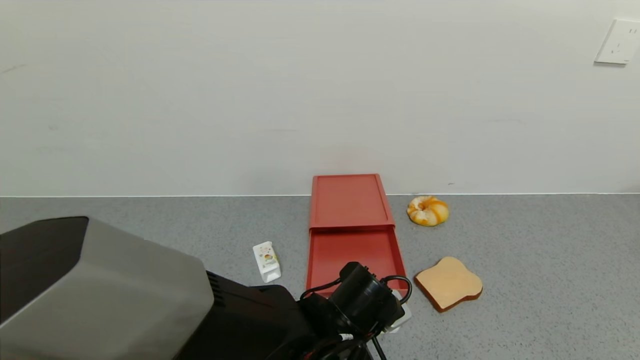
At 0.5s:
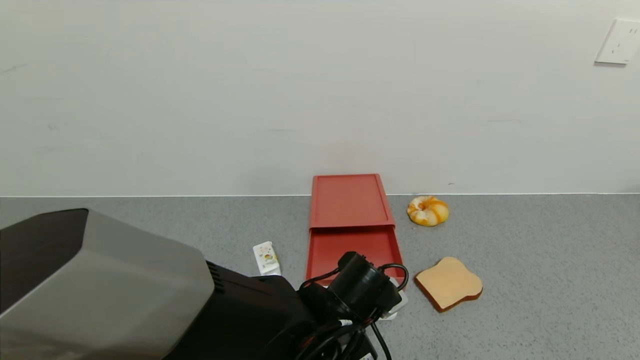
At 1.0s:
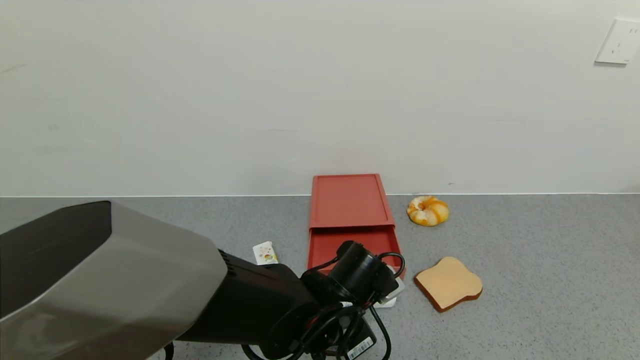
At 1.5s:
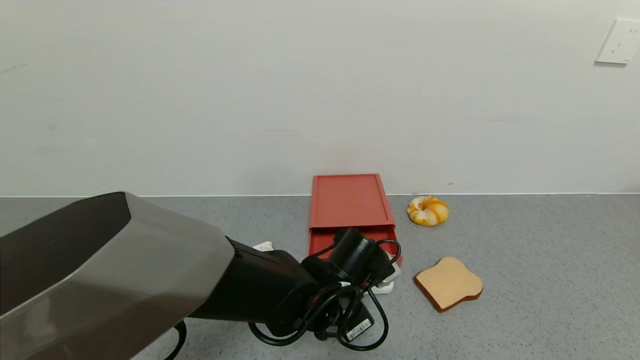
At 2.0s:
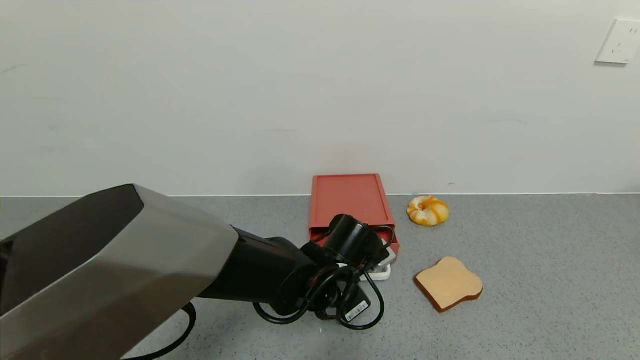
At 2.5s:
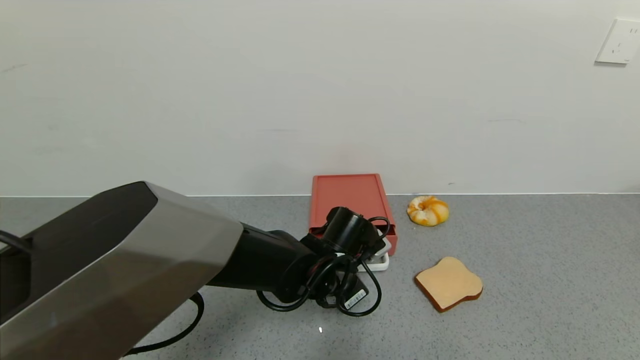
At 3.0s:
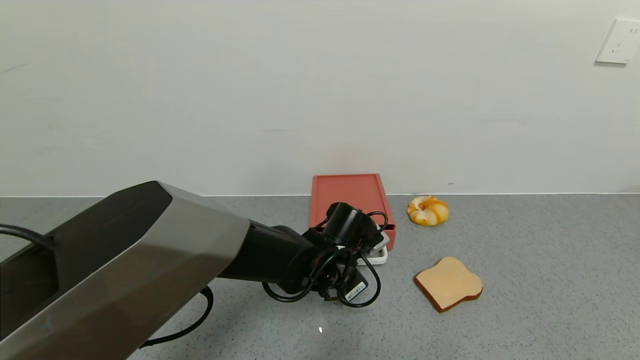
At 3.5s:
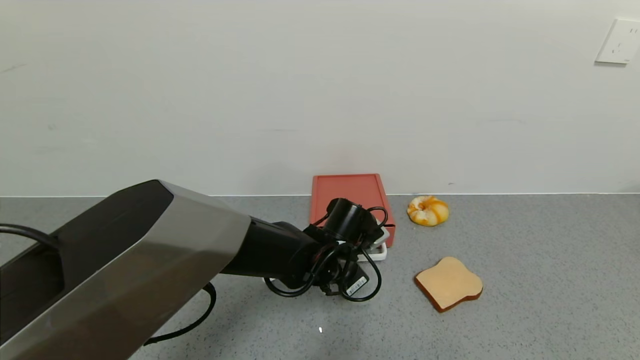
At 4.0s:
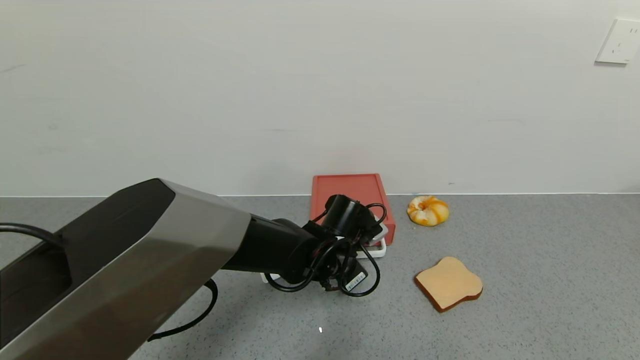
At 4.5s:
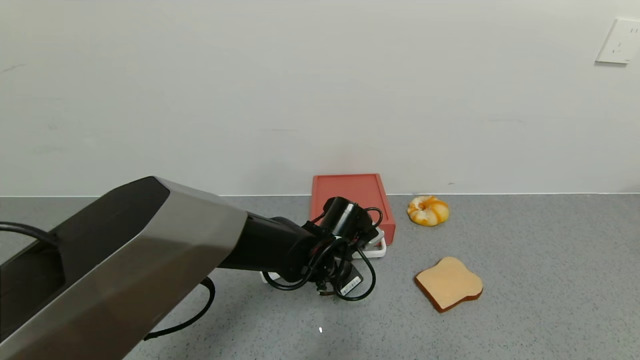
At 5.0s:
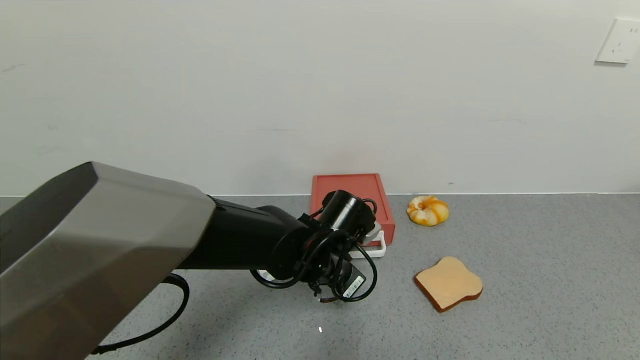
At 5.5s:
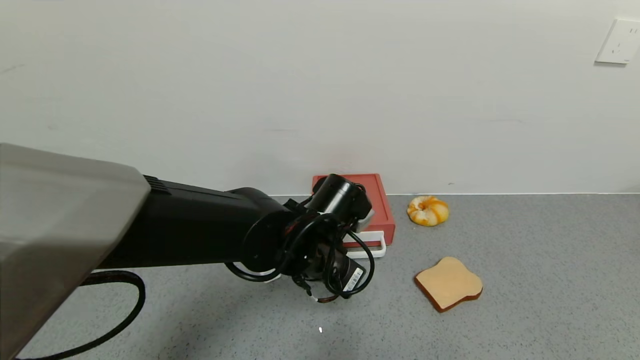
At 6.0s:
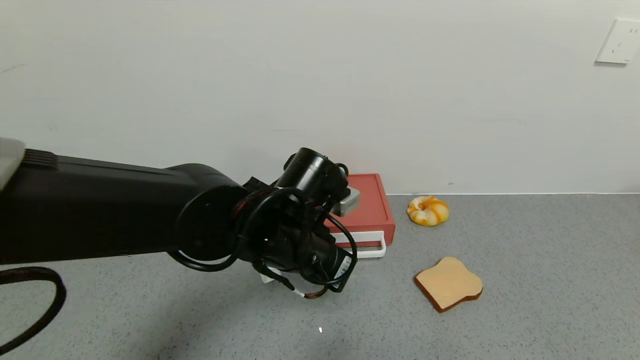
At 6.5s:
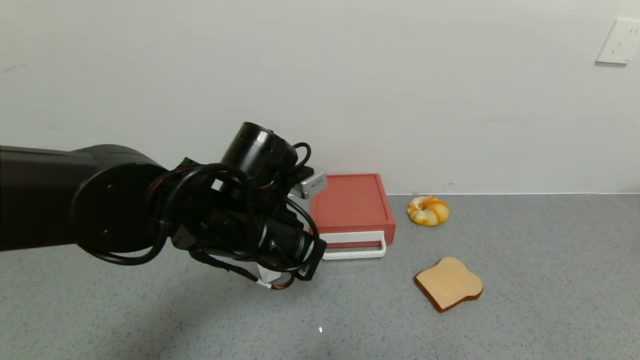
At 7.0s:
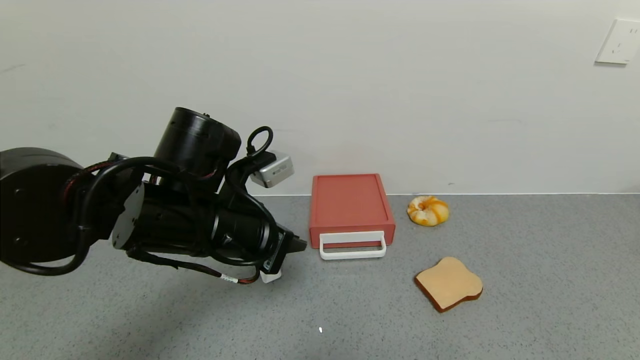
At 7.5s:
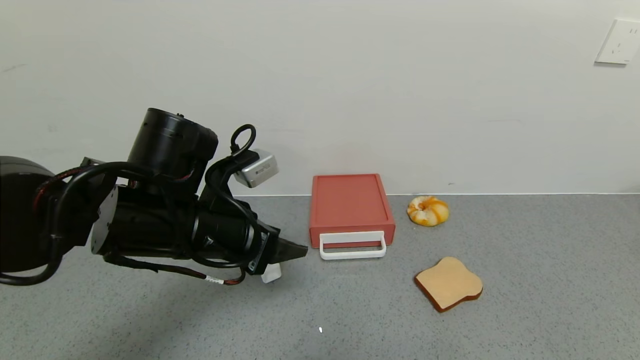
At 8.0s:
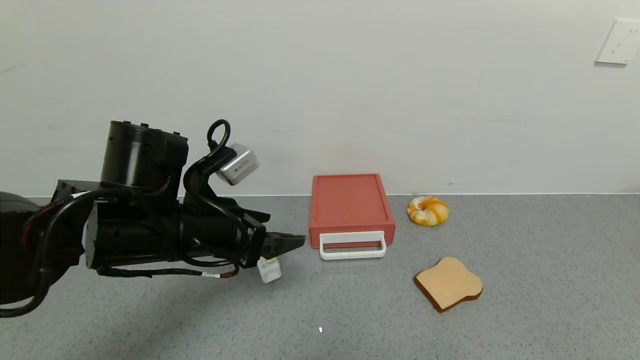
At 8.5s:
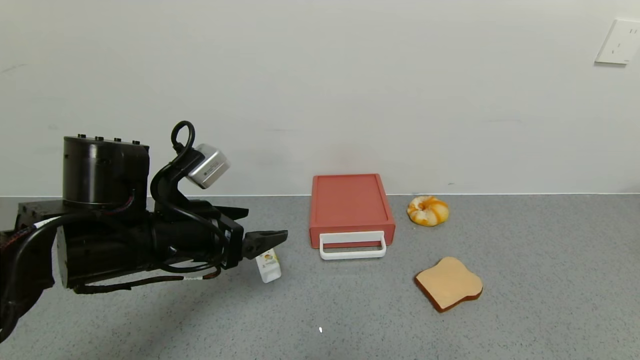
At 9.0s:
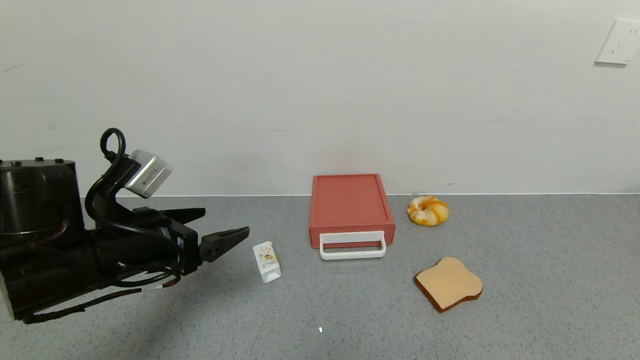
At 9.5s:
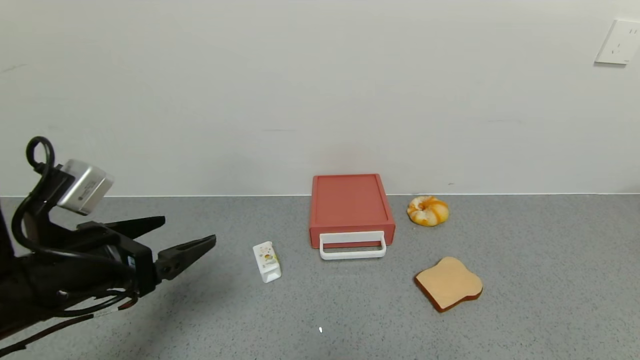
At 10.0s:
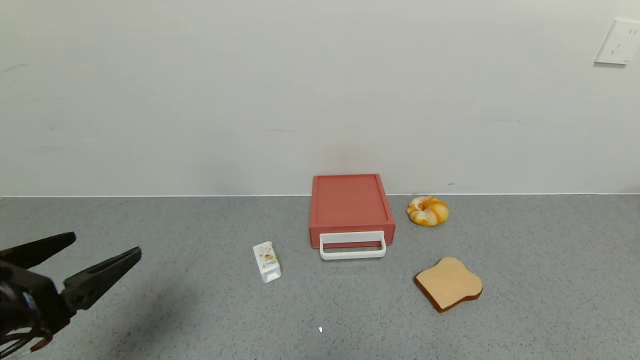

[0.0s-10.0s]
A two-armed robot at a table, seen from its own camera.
Task of the whole recording: use the gripper to open the drawer and close the red drawer.
Step, 0.0s to 5.0s: Close the red drawer with the left gripper.
0.0s to 2.0s: The left gripper is displaced forward by about 5 cm.
2.0s to 4.0s: The grippers stay close to where they were, moving slightly.
4.0s to 6.0s: The left gripper travels upward and backward by some 10 cm.
6.0s to 8.0s: The left gripper moves to the left, approximately 10 cm, and opens.
8.0s to 10.0s: The left gripper heads backward and to the left, covering some 20 cm.

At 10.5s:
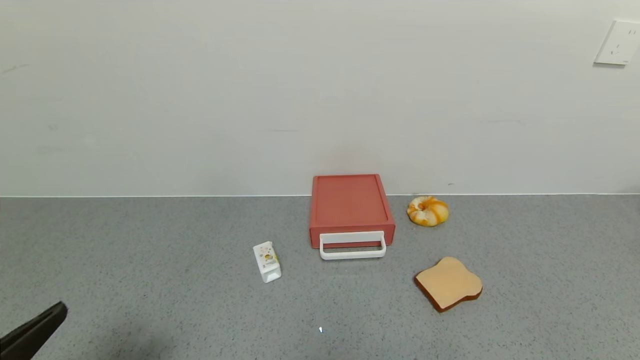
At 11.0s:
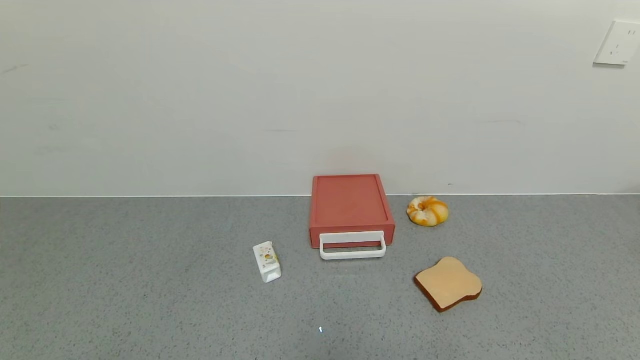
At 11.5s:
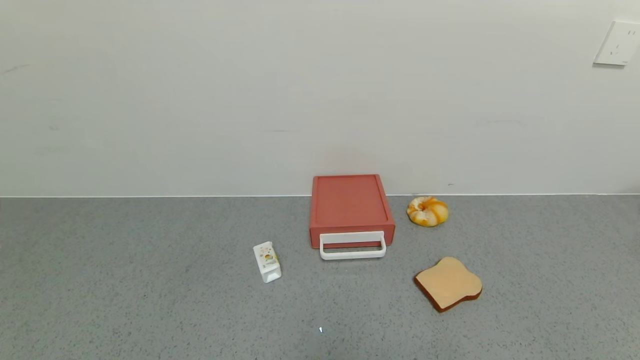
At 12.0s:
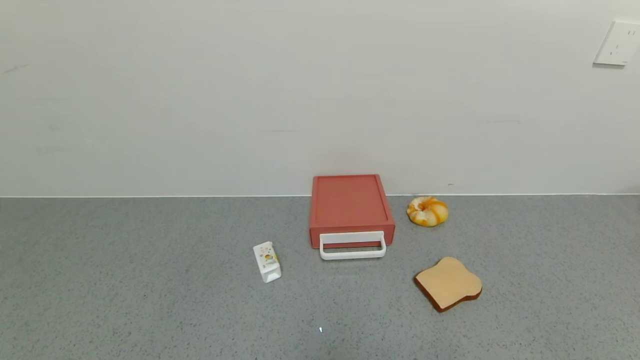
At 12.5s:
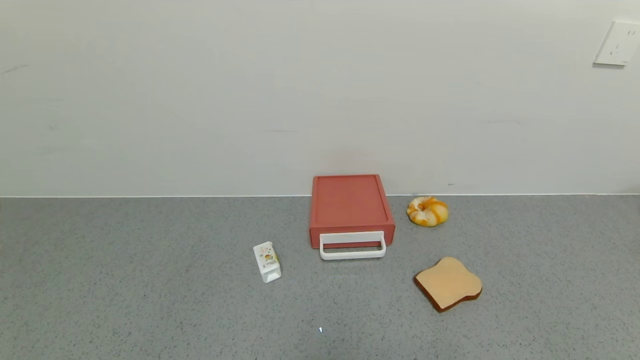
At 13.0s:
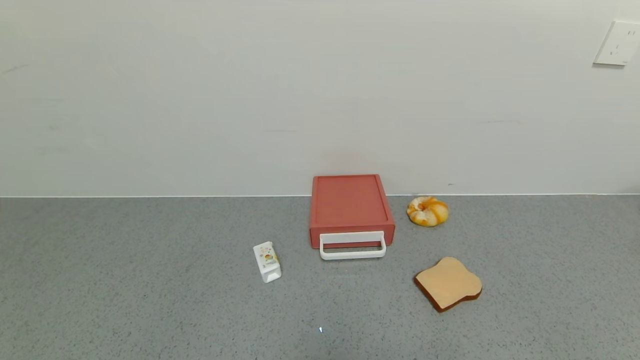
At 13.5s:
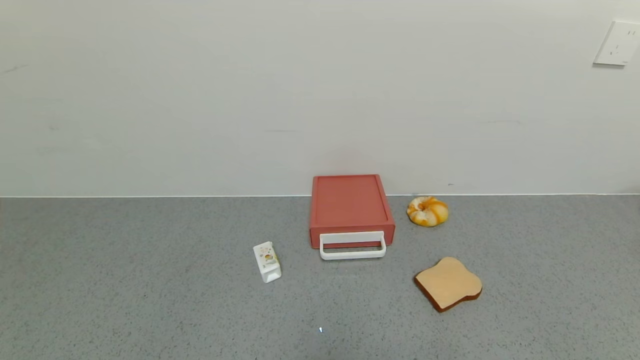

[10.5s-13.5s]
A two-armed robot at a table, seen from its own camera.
Task of the whole recording: use the gripper to open the drawer and close the red drawer.
10.5s to 12.0s: The left gripper goes approximately 15 cm downward and backward.

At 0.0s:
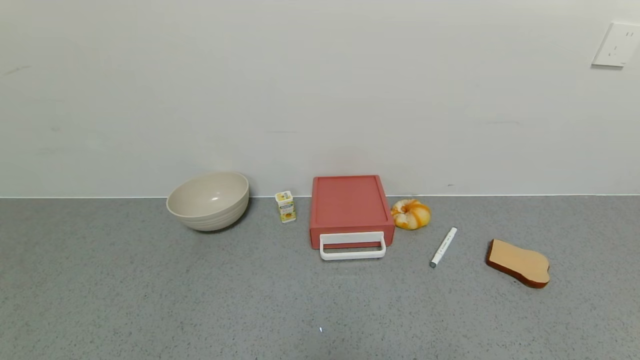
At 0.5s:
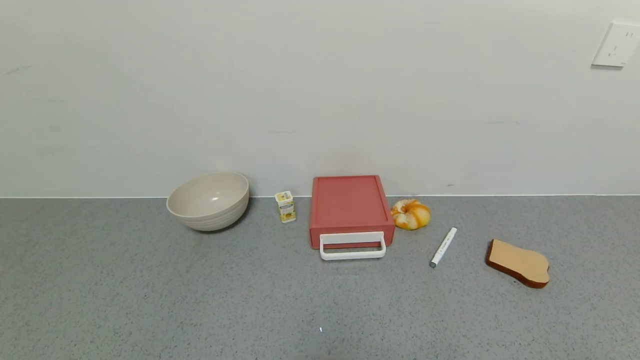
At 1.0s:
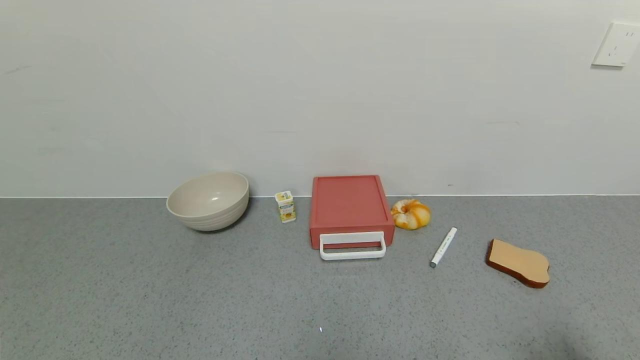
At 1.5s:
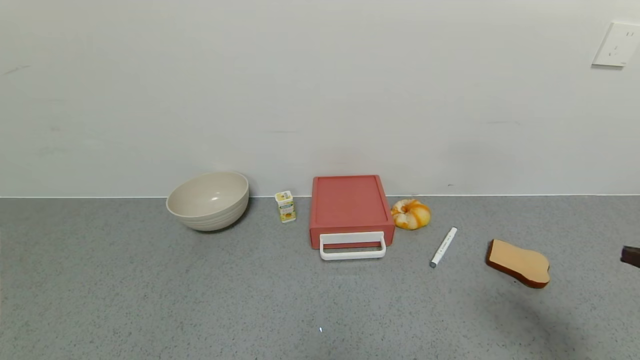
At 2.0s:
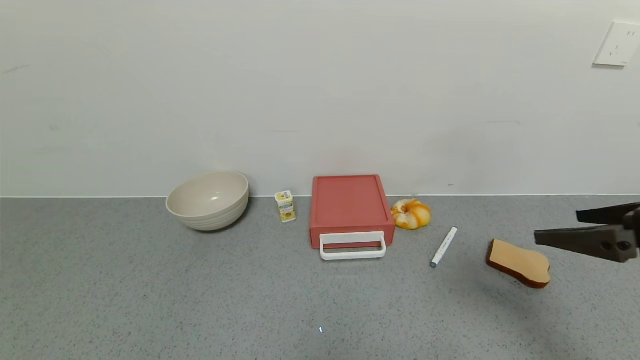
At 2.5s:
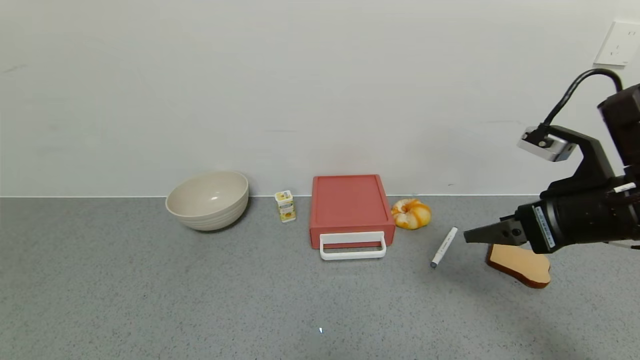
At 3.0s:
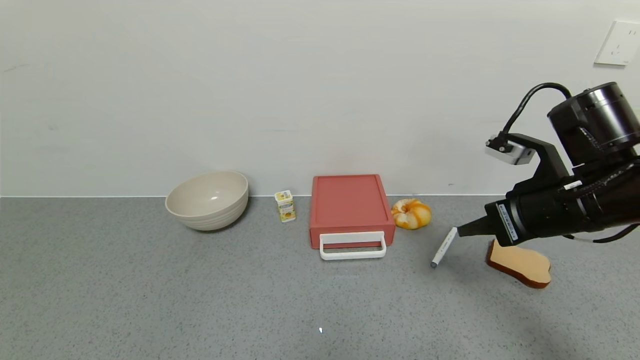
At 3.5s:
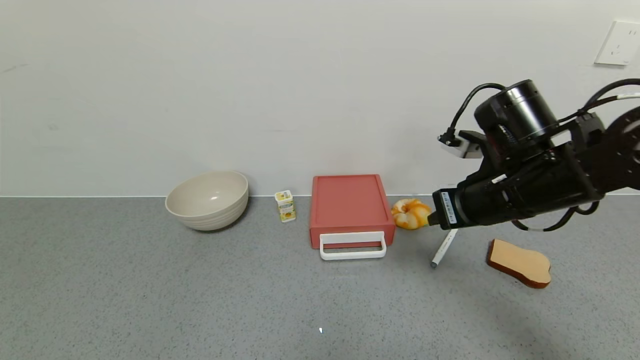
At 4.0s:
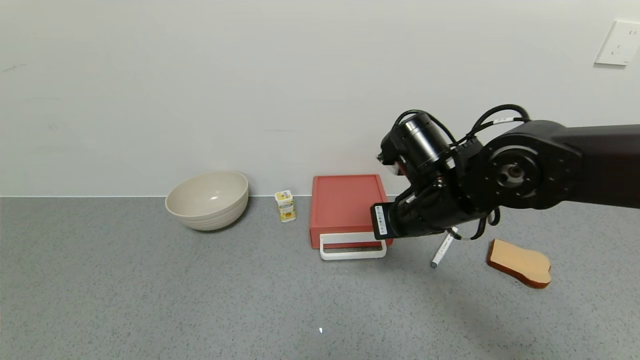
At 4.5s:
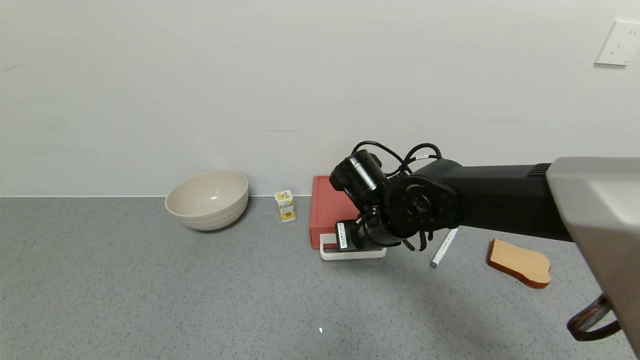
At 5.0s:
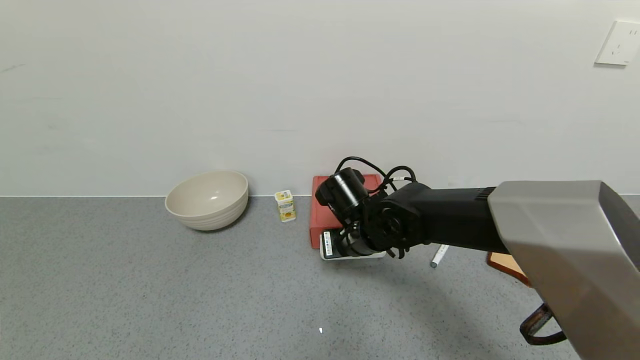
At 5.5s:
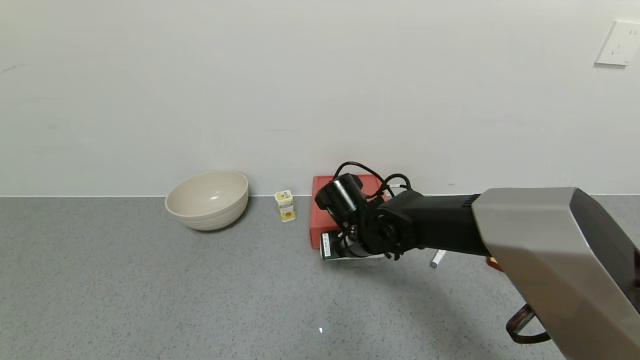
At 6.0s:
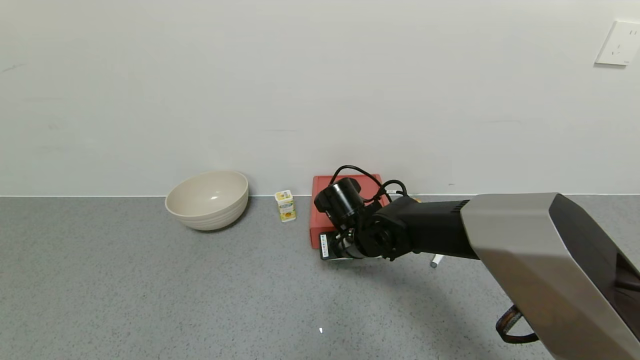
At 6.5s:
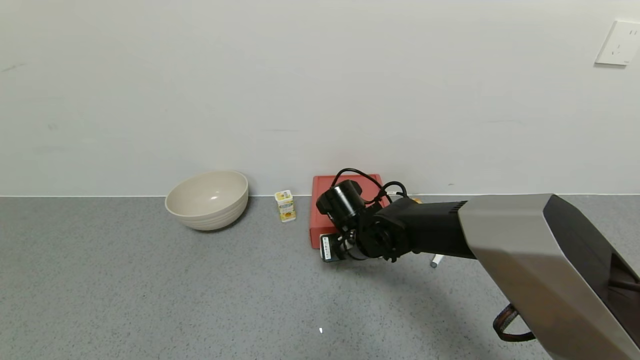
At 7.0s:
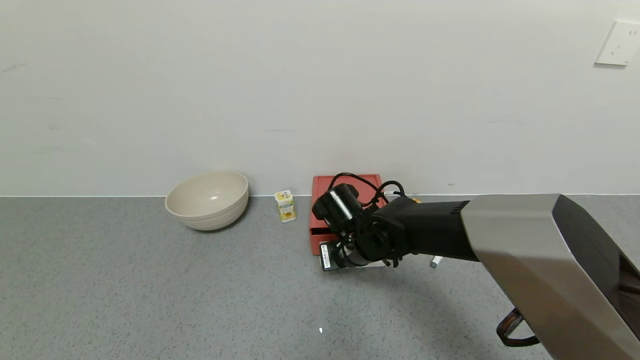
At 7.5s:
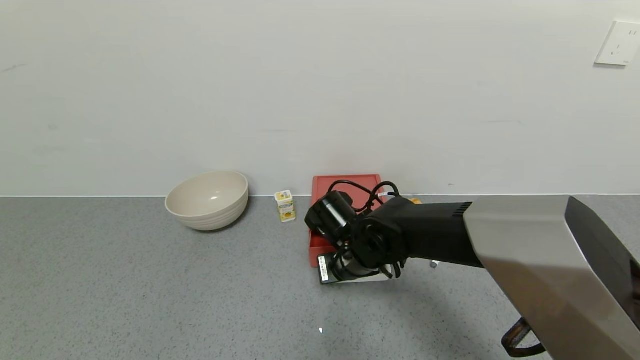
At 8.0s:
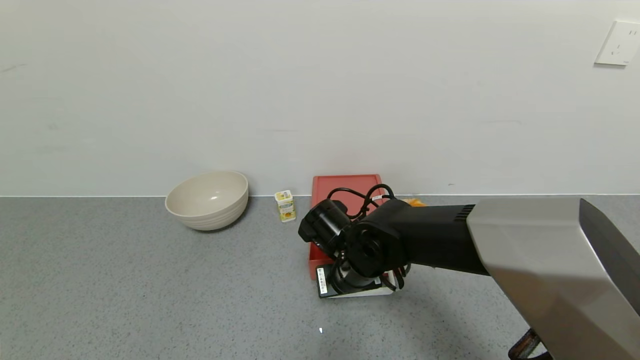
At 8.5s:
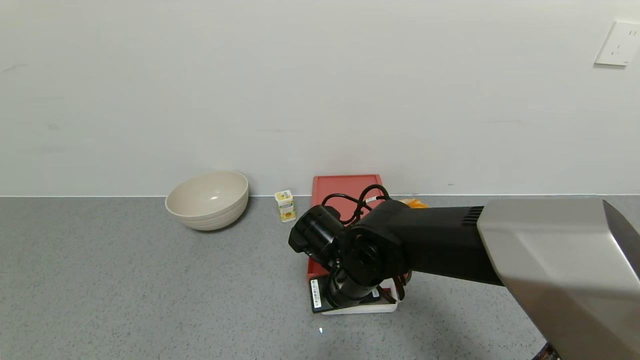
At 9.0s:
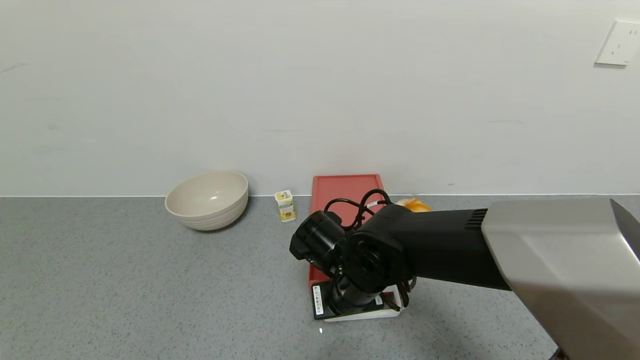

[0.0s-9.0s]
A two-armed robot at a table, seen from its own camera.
Task of the whole recording: use the gripper to open the drawer and close the red drawer.
0.0s to 2.0s: The right gripper heads forward and upward, covering about 30 cm.
2.0s to 4.5s: The right gripper travels to the left, forward and downward by roughly 30 cm, and closes up.
4.5s to 7.0s: The right gripper shifts about 5 cm downward.
7.0s to 9.0s: The right gripper goes roughly 10 cm backward.
